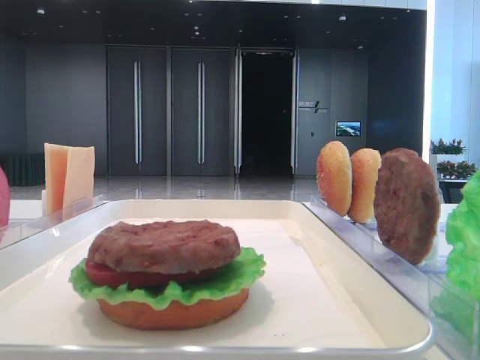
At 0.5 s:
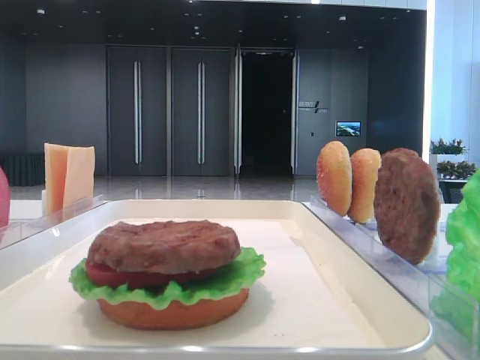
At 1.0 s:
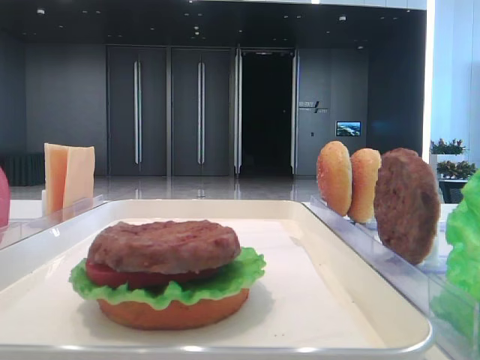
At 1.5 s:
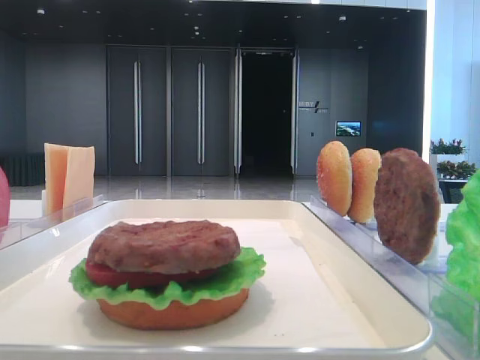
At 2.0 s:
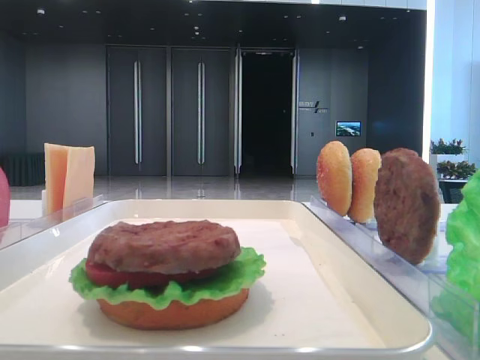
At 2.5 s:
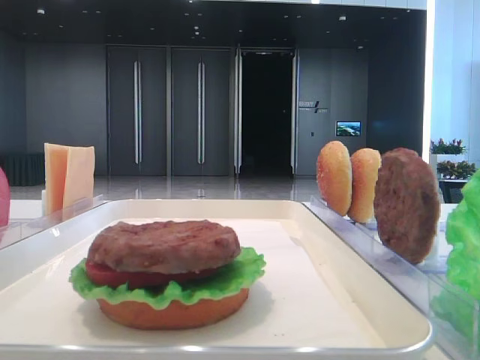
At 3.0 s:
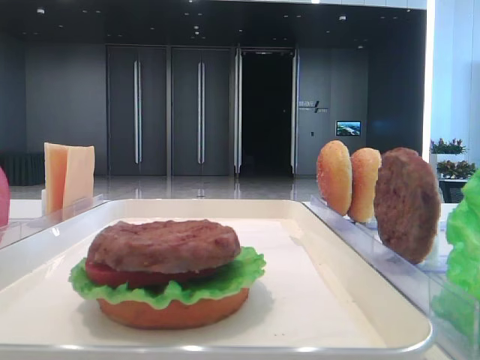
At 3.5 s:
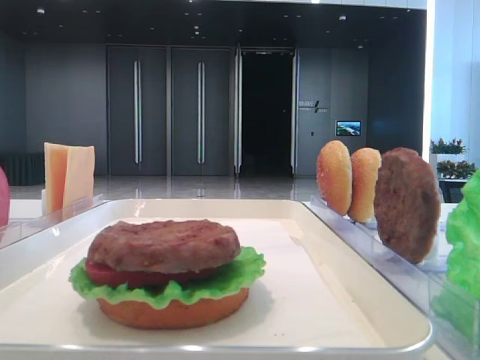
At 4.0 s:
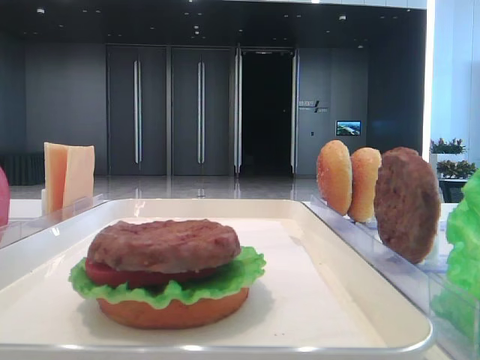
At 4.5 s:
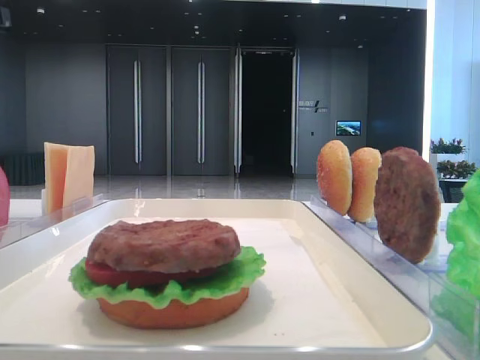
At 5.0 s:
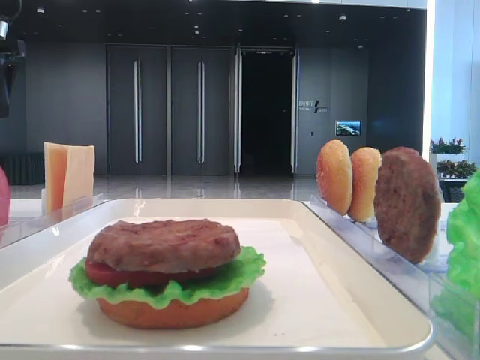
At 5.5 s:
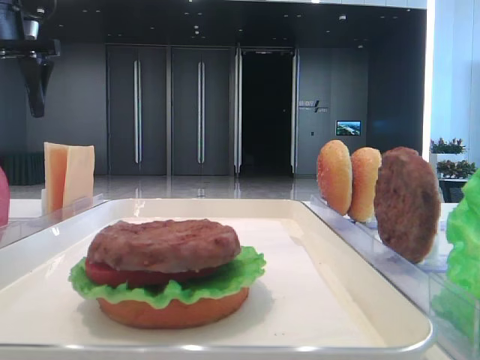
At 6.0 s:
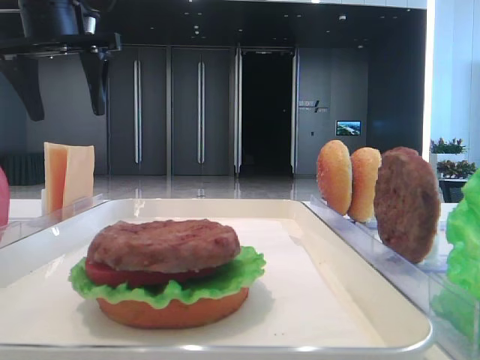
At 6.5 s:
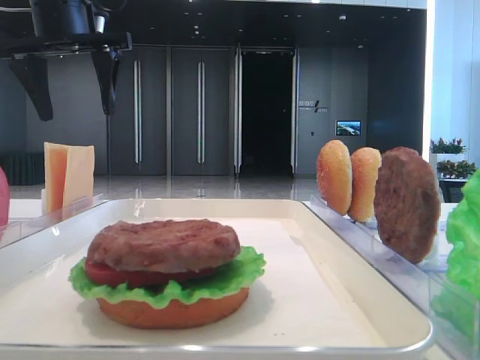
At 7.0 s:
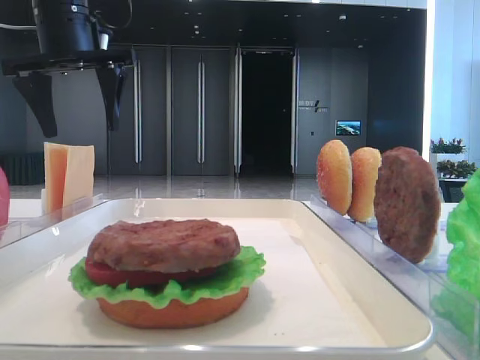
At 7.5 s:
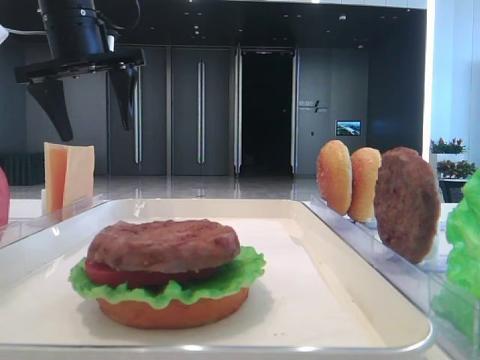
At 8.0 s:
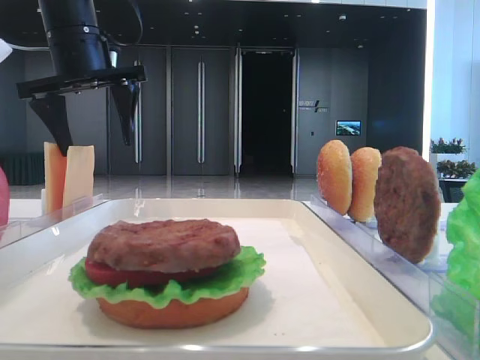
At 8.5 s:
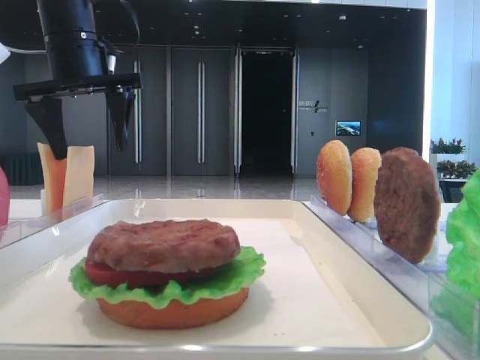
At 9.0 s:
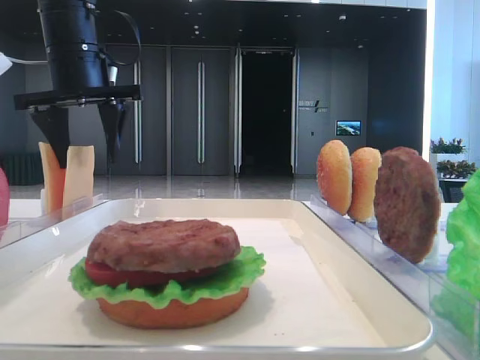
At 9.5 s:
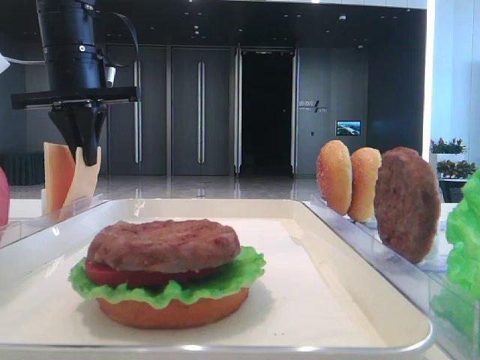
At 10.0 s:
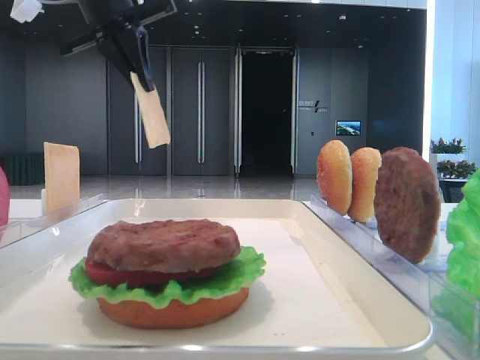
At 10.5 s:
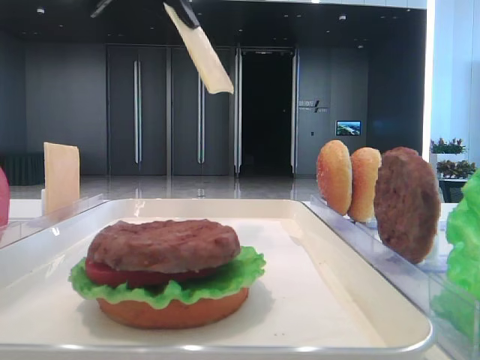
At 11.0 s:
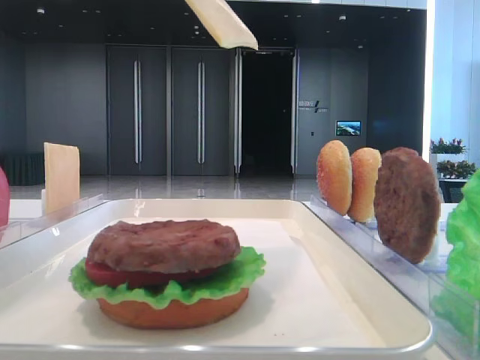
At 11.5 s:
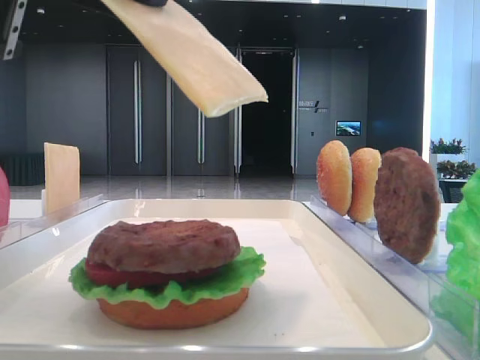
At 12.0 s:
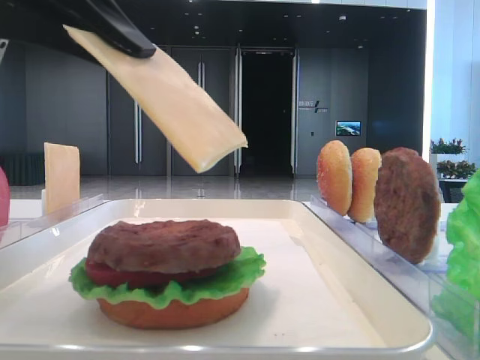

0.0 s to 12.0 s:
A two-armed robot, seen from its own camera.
Step, 0.0 to 9.0 s: Pick up the cheese slice with the left hand.
4.0 to 6.0 s: The left gripper is displaced to the right, forward and downward by approximately 15 cm.
6.0 to 8.0 s: The grippers make only small movements.
8.0 to 10.0 s: The left gripper travels upward by approximately 5 cm, and closes its fingers.
10.0 to 12.0 s: The left gripper is displaced backward by about 25 cm.

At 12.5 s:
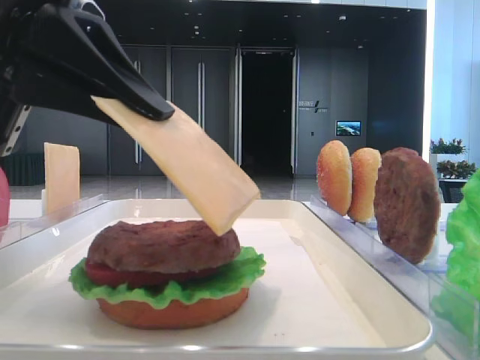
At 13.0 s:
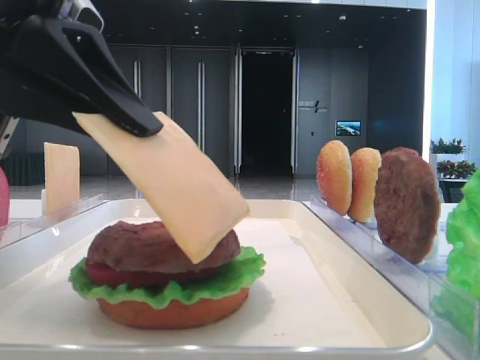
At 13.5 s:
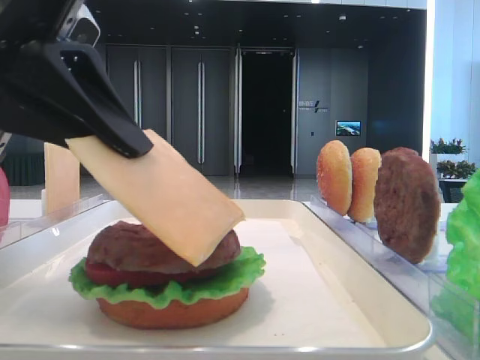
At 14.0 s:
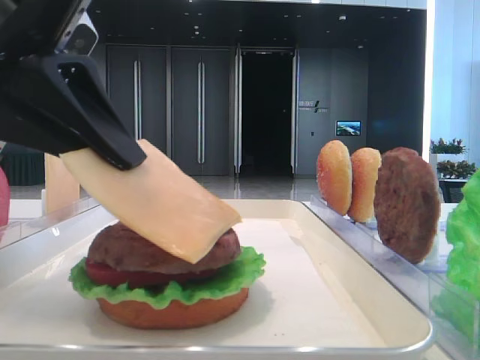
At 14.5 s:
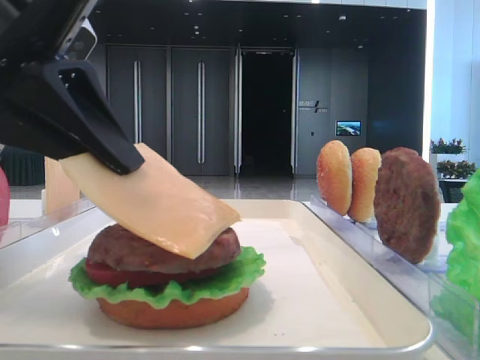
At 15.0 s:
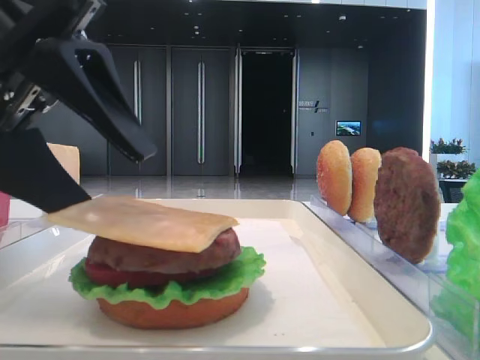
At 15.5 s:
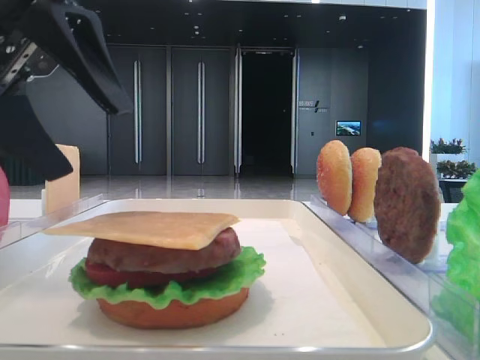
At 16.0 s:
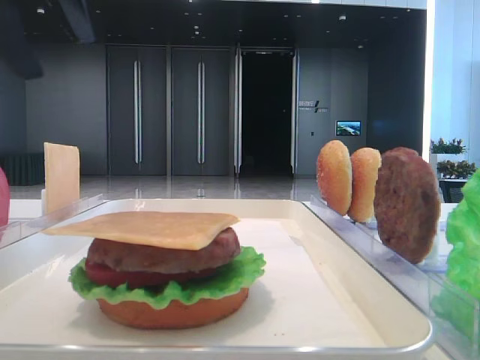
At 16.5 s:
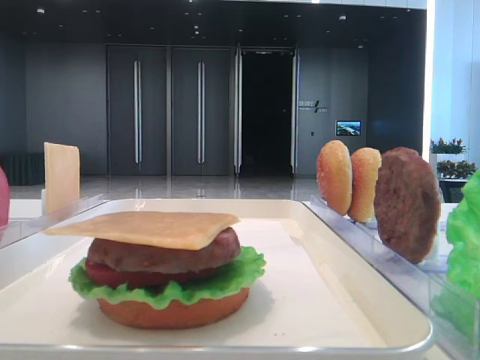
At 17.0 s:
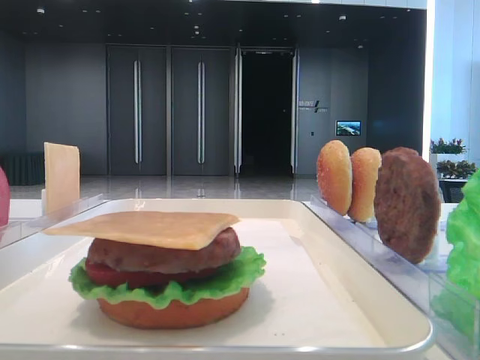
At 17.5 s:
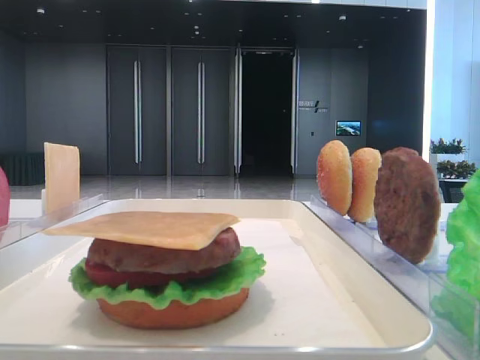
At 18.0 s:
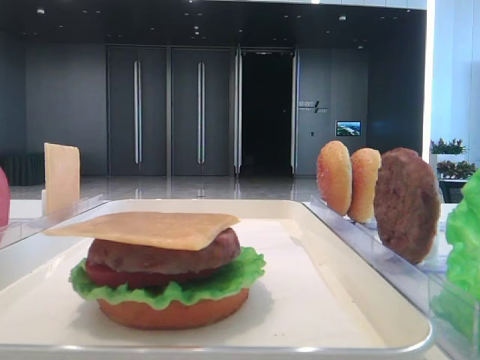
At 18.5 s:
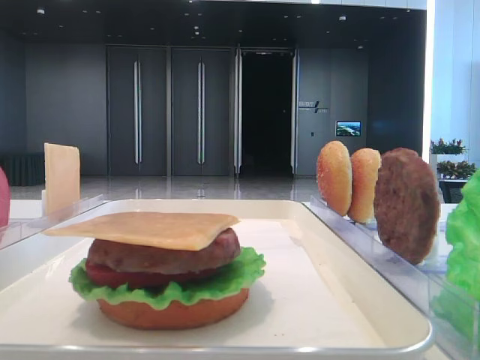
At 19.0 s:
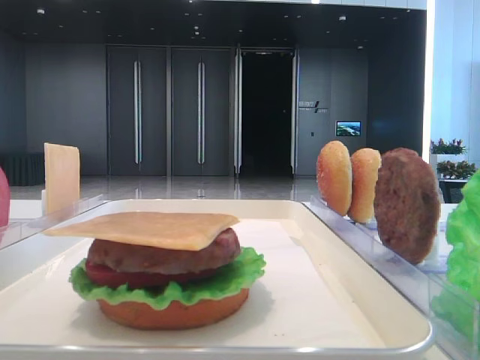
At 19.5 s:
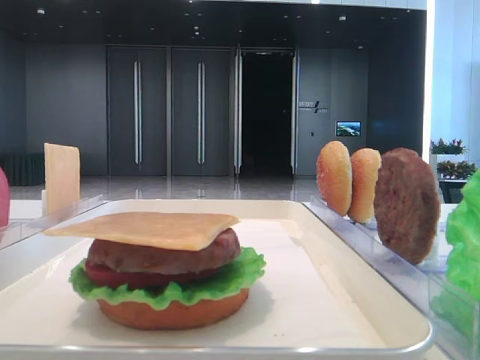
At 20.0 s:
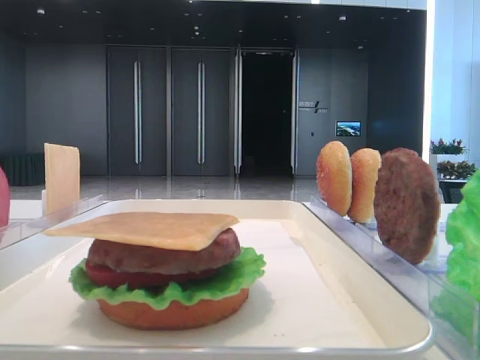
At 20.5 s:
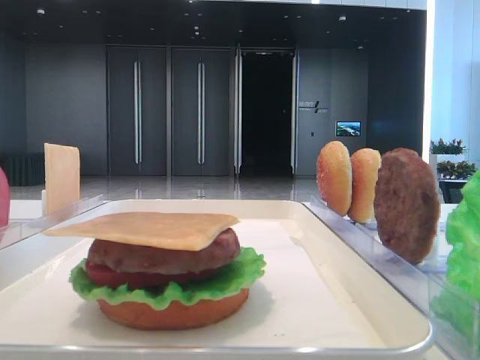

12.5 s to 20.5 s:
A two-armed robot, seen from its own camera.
Step, 12.5 to 15.0 s: Place the cheese slice on the patty with the left hand.
12.5 to 14.5 s: The grippers make only small movements.
14.5 to 16.5 s: The left gripper is displaced to the left, upward and forward by approximately 25 cm, and opens.

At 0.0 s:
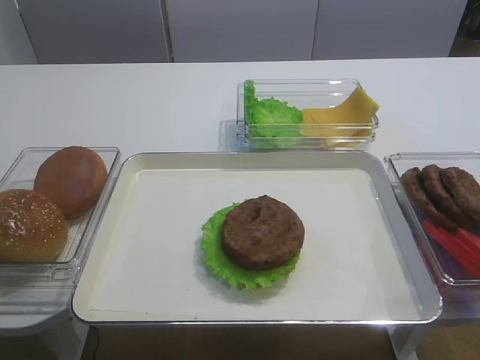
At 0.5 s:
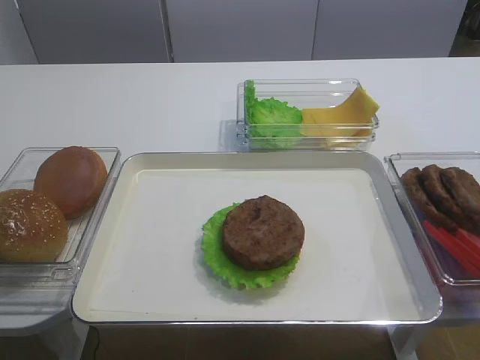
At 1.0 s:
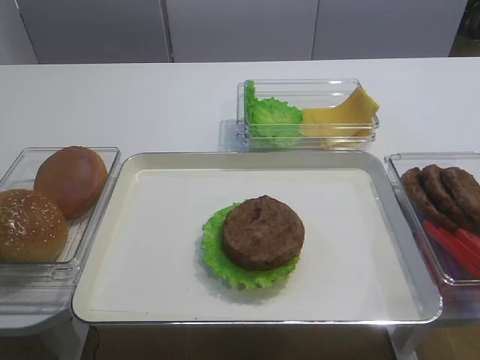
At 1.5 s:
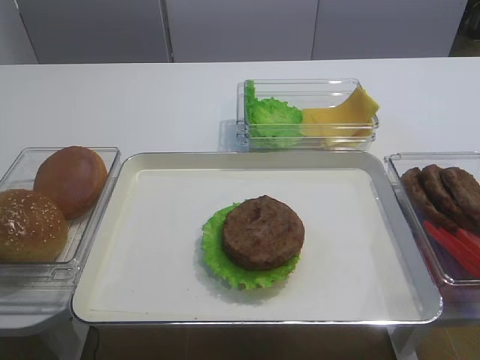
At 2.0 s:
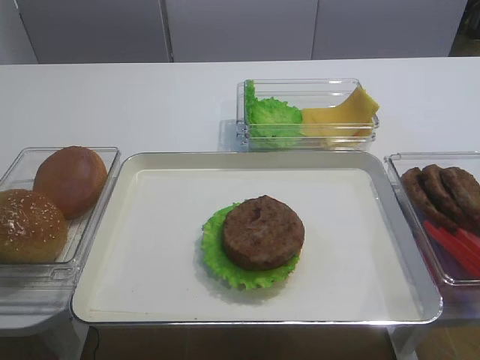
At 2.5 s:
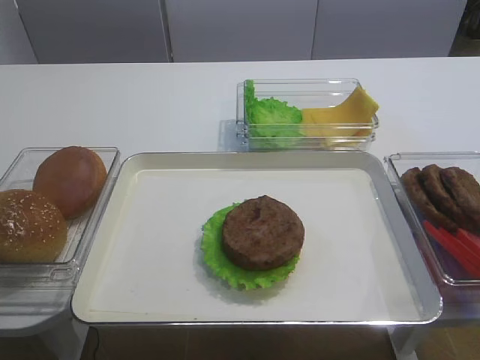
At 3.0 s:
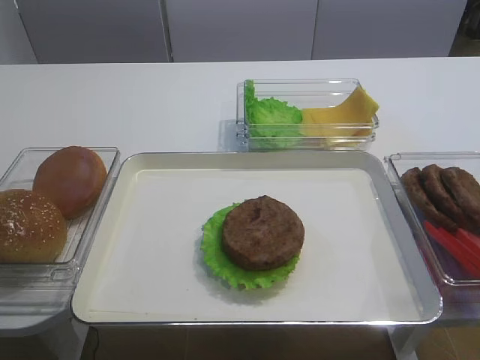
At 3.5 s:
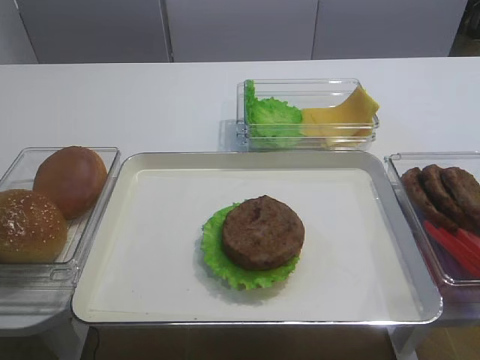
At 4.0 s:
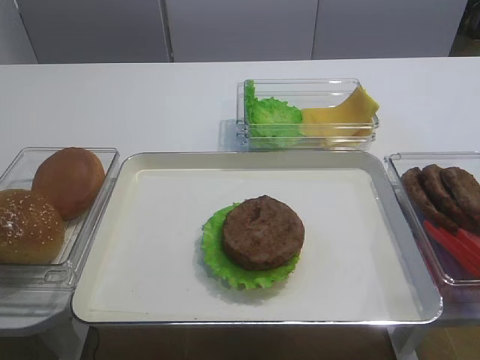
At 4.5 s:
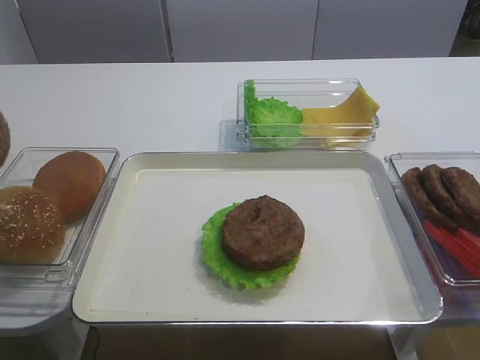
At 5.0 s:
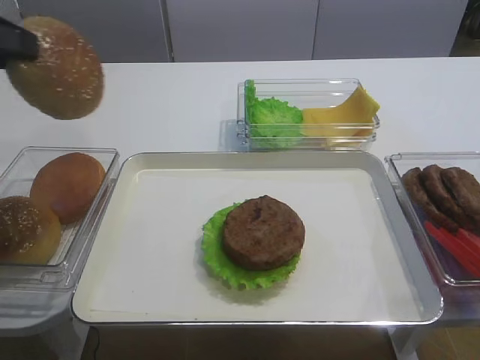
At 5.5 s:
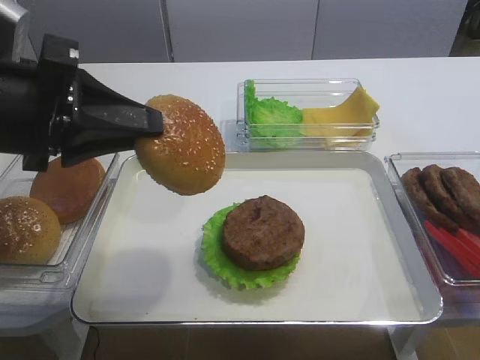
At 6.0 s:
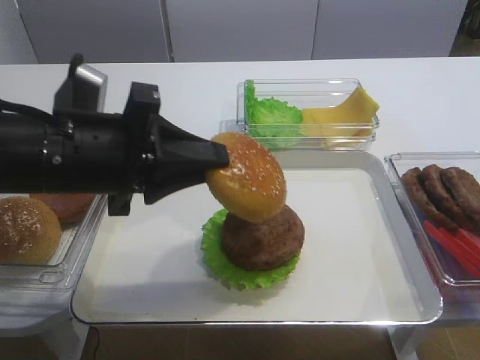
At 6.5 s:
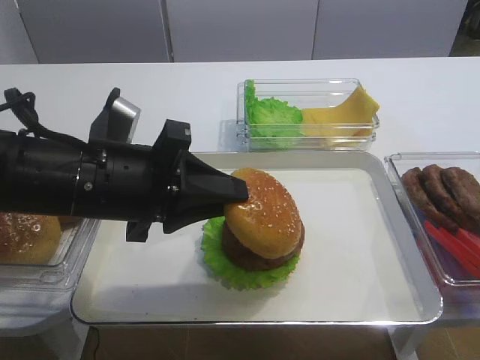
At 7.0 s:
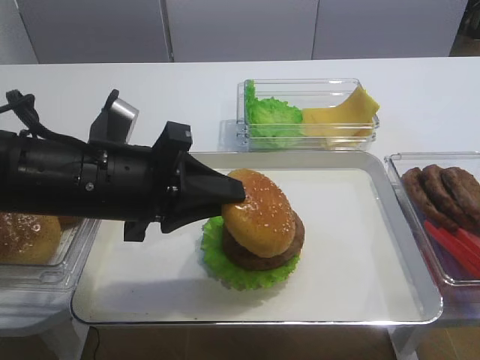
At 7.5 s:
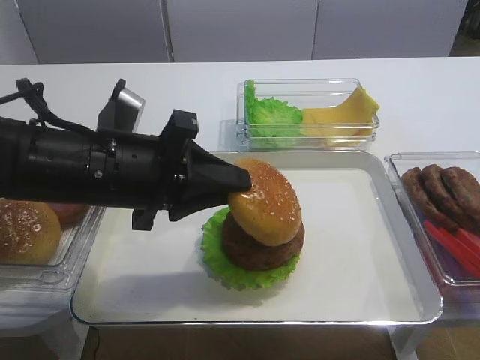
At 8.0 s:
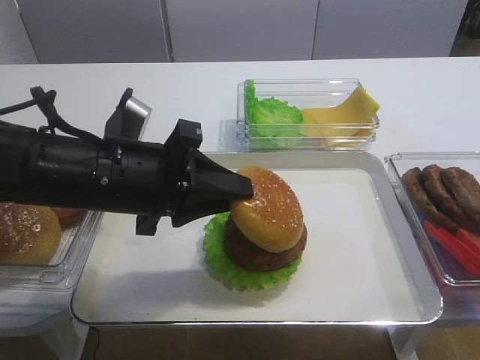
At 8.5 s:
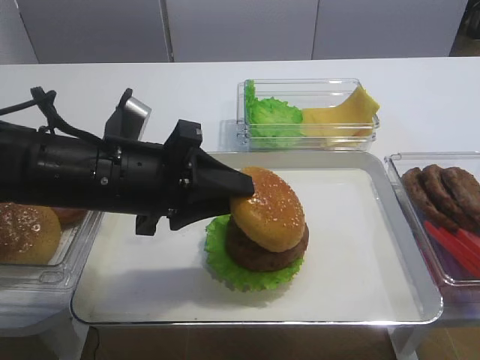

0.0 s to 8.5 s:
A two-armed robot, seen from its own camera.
2.0 to 4.0 s: The left gripper goes about 10 cm forward and to the left, and closes.
4.0 to 6.5 s: The left gripper goes approximately 20 cm to the right.
6.5 to 8.5 s: There are only small adjustments of the grippers.
